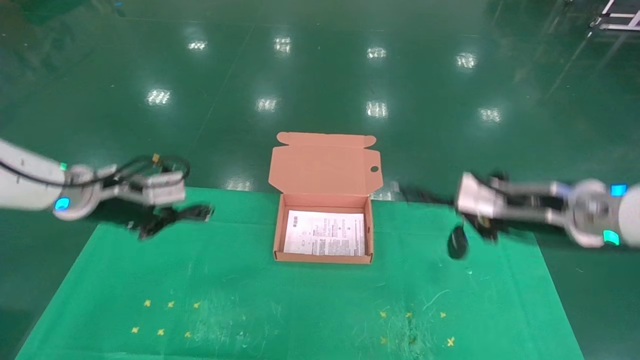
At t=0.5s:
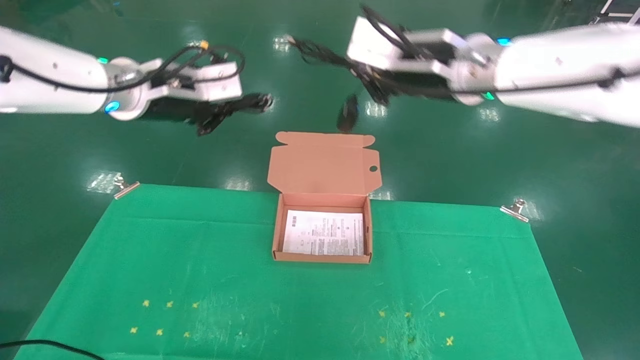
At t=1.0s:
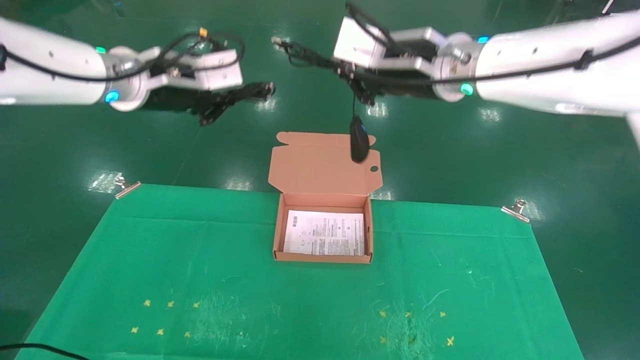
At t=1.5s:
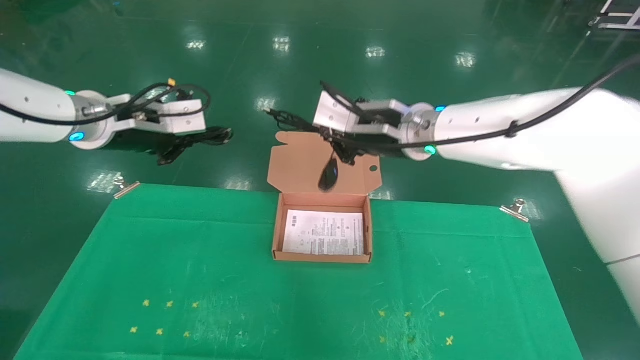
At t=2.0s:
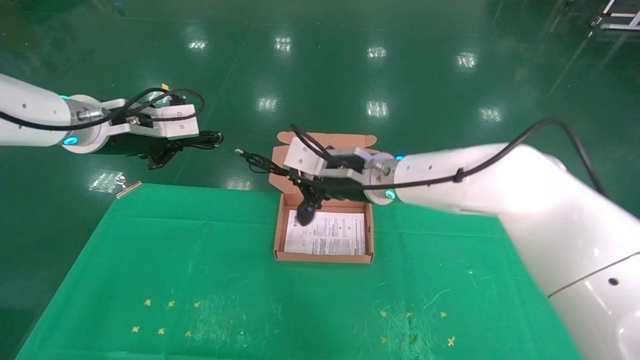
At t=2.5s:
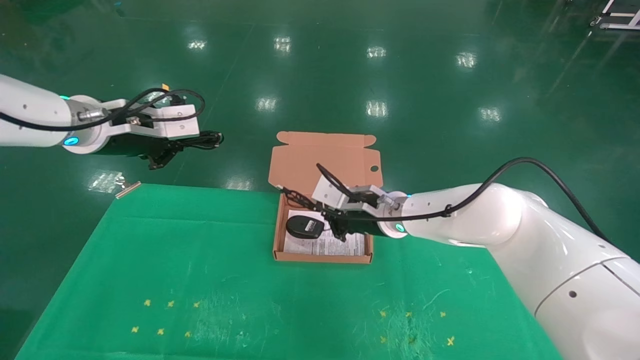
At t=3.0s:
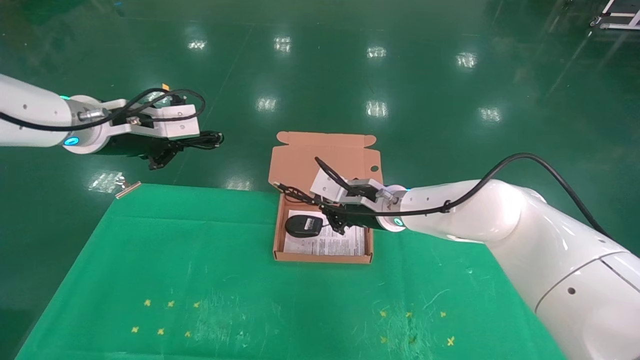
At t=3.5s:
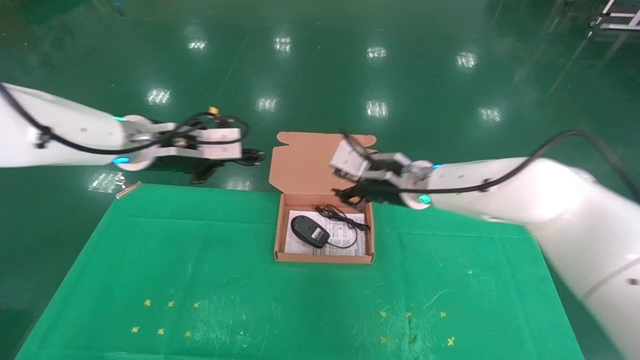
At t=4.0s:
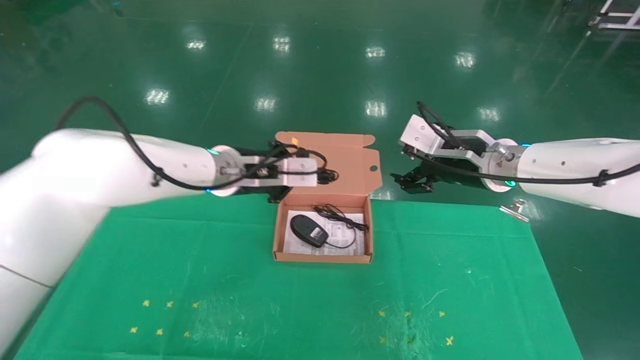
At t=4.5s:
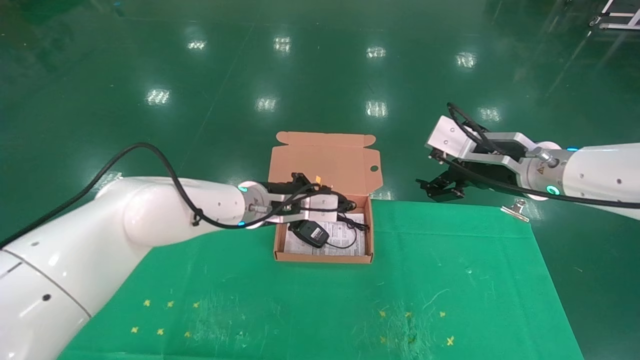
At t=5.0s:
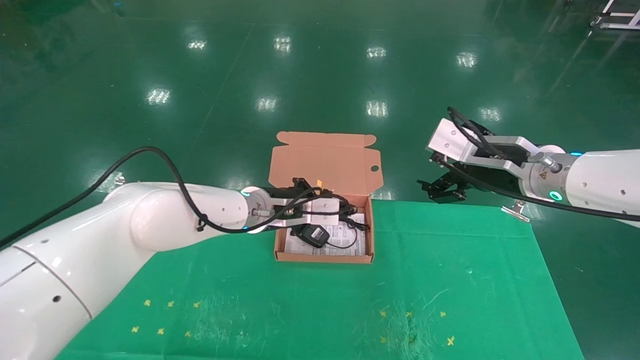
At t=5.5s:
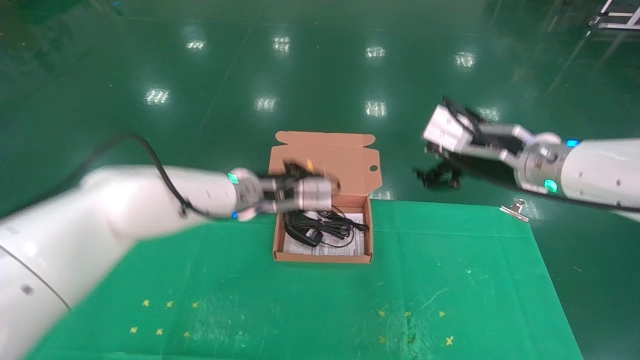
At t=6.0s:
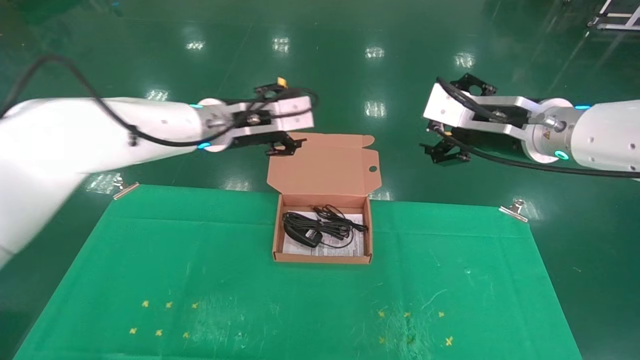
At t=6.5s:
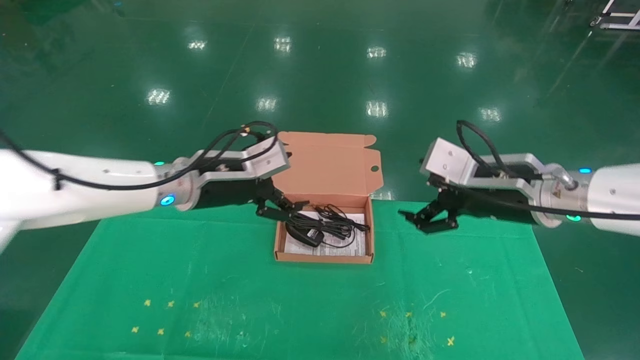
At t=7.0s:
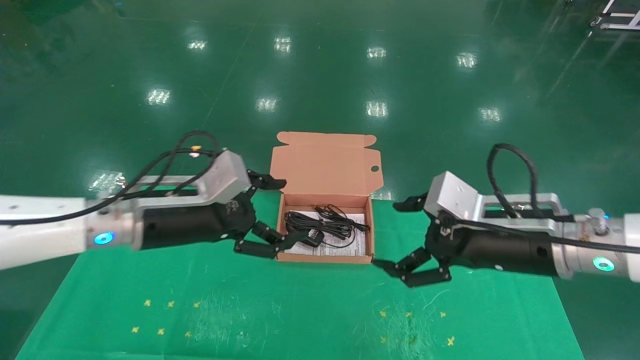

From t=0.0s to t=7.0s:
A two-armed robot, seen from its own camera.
Task of the whole recording: grasp data cable left put into box grasp mouse right put into box.
Step, from t=0.5s to t=5.5s: Place the mouse and power cord into the box.
From t=0.0s to t=2.0s: The left gripper goes approximately 10 cm upward; the right gripper heads to the left and forward, covering approximately 20 cm.
From t=2.0s to t=3.5s: Both grippers travel together to the right, about 5 cm.
From t=3.5s to t=5.0s: The right gripper goes roughly 15 cm to the right and backward, and opens. Meanwhile the left gripper goes approximately 15 cm to the right and downward.
From t=5.0s to t=7.0s: The left gripper is displaced to the left and backward by about 15 cm, and opens its fingers. Meanwhile the right gripper shifts approximately 10 cm backward and downward.
